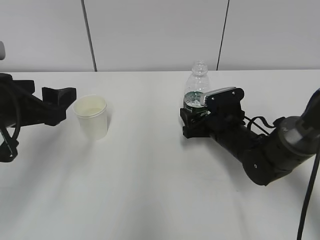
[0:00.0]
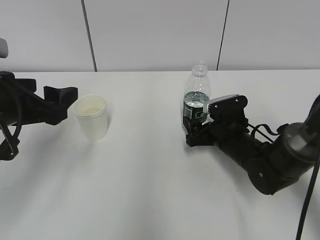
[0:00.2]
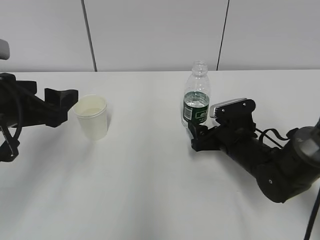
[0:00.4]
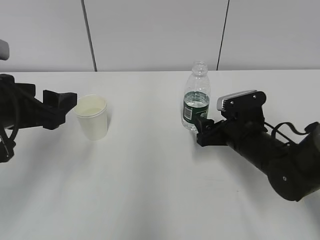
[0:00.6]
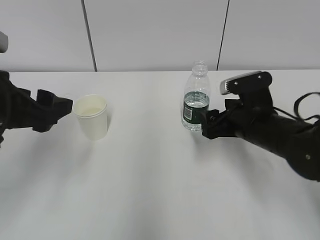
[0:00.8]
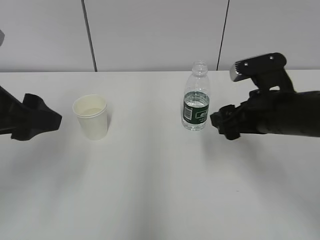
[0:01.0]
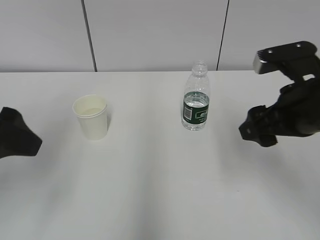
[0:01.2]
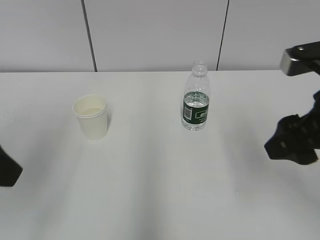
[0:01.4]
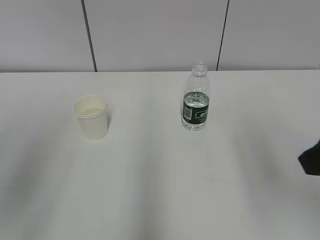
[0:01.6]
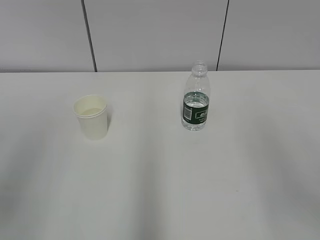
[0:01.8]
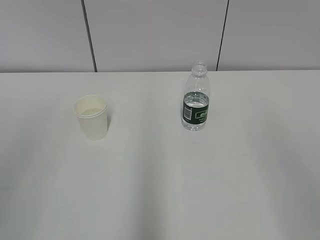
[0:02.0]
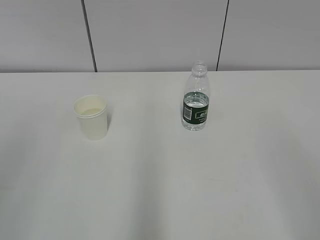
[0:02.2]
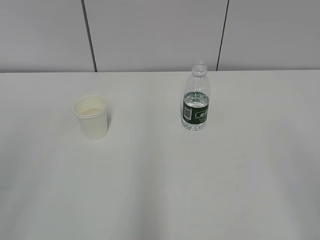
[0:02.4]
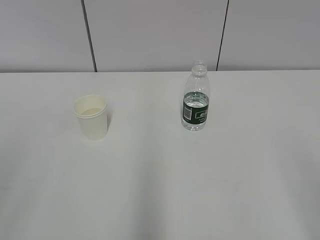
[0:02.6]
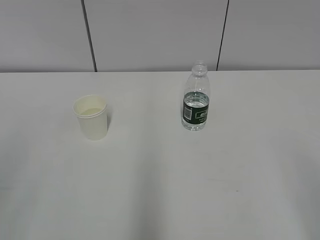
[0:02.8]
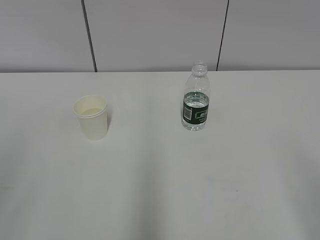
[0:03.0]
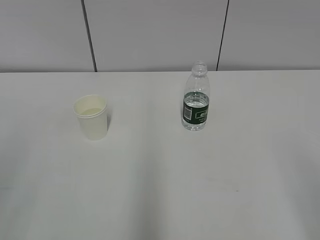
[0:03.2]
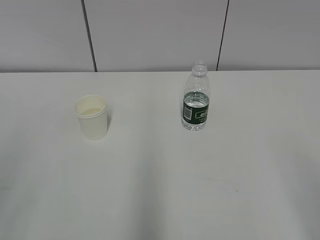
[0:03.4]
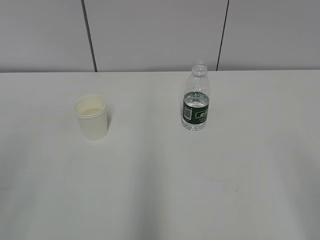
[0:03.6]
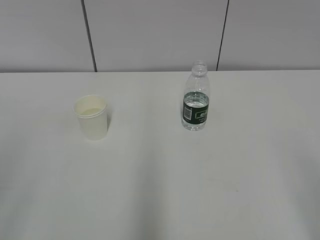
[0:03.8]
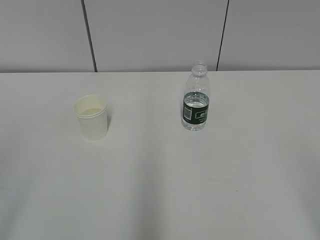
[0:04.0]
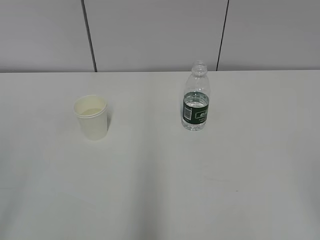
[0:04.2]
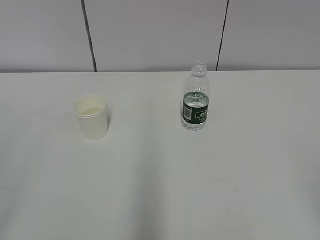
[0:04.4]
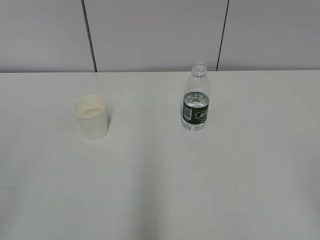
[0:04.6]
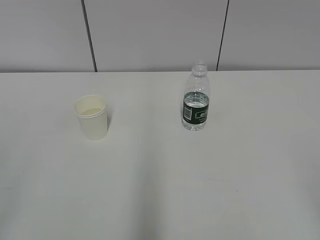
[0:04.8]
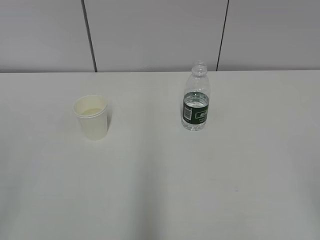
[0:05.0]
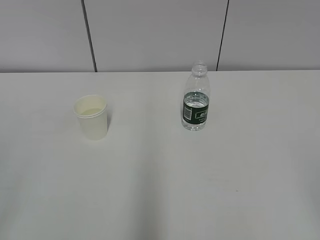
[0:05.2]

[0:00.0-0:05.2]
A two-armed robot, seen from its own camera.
0:00.0 to 0:01.8: The right gripper travels upward and backward by about 35 cm, while the left gripper shifts about 20 cm backward and upward.
